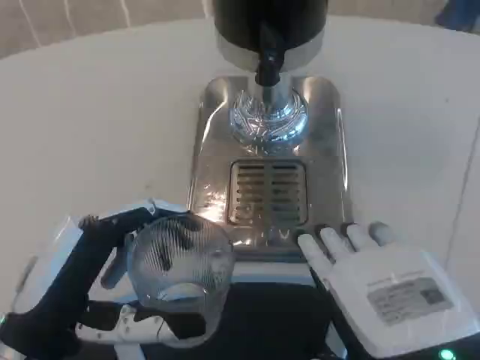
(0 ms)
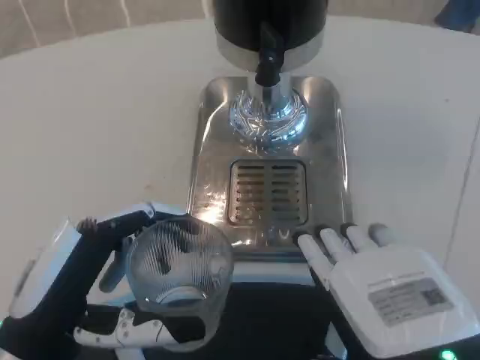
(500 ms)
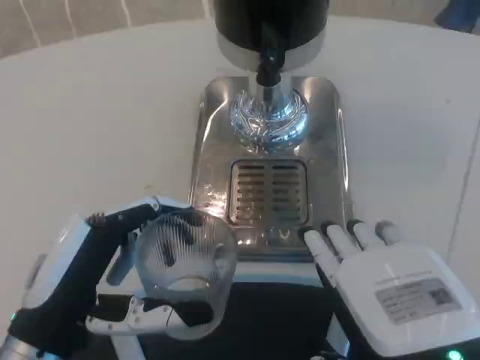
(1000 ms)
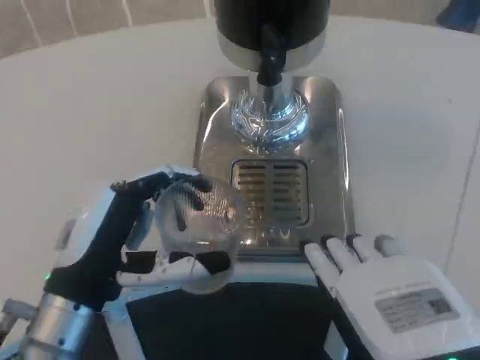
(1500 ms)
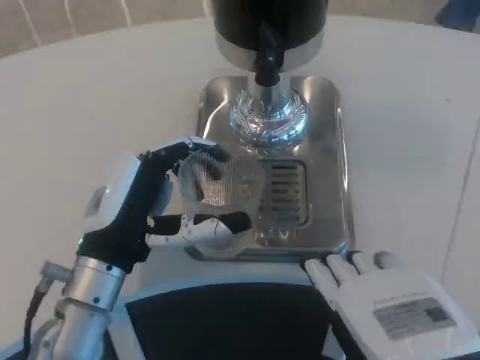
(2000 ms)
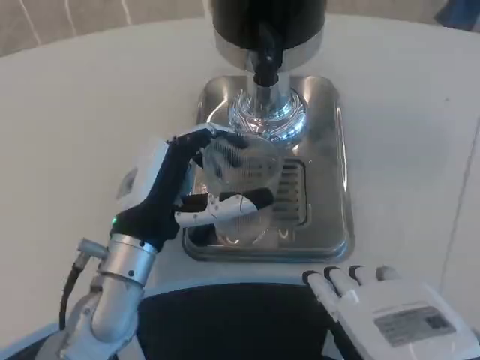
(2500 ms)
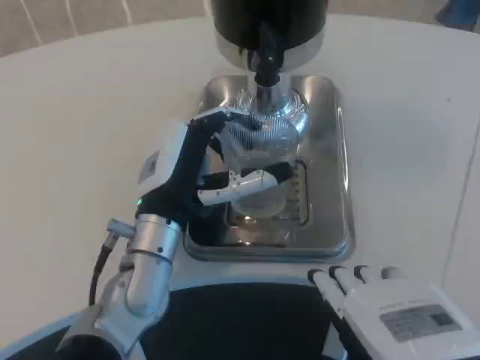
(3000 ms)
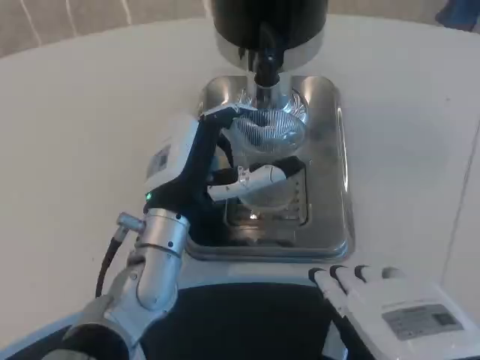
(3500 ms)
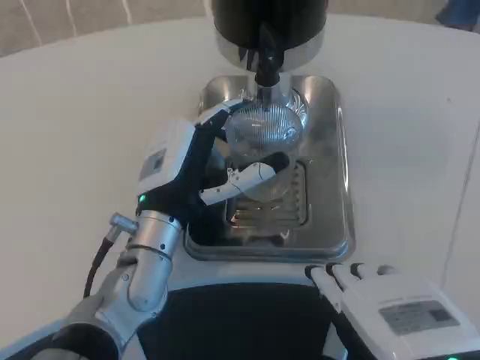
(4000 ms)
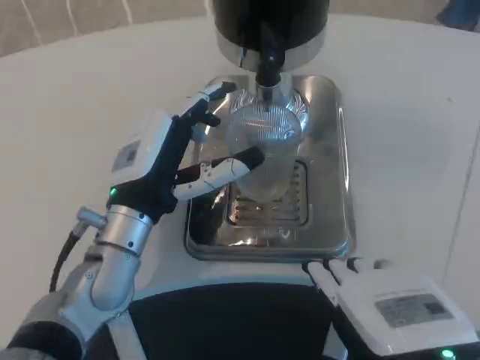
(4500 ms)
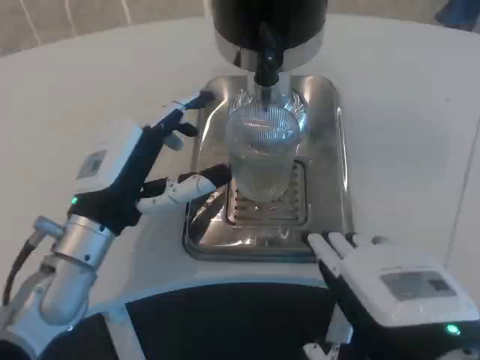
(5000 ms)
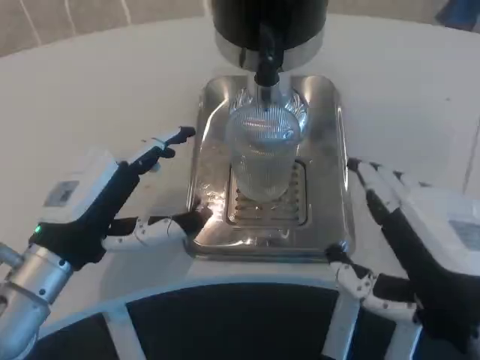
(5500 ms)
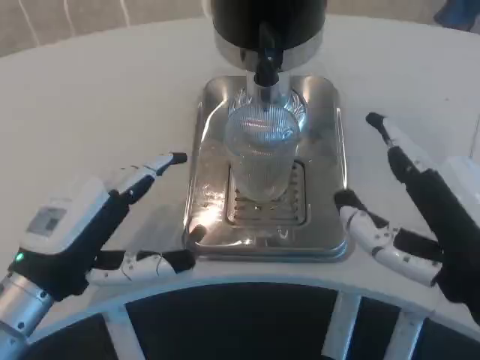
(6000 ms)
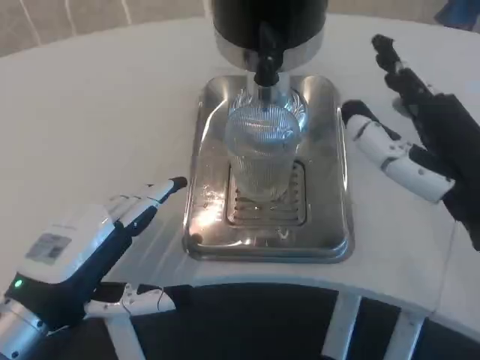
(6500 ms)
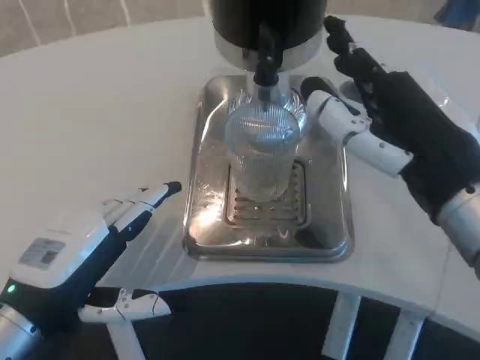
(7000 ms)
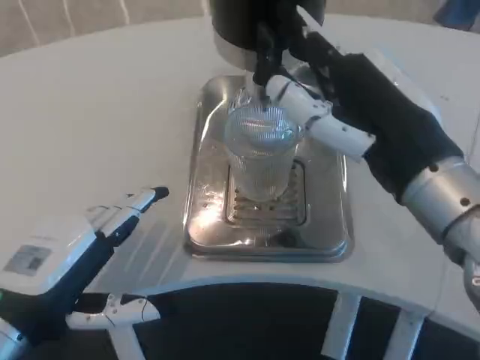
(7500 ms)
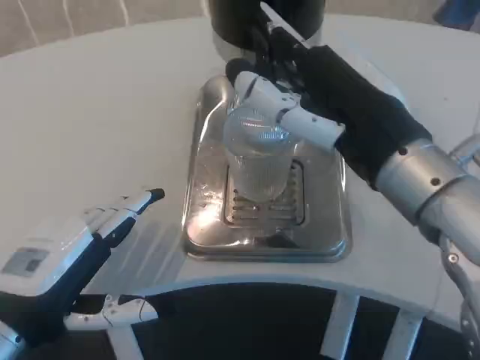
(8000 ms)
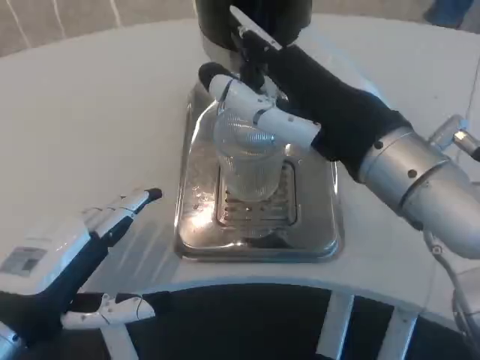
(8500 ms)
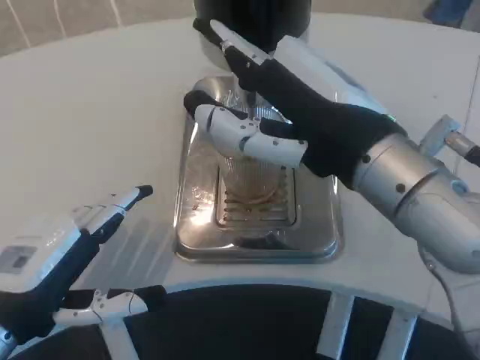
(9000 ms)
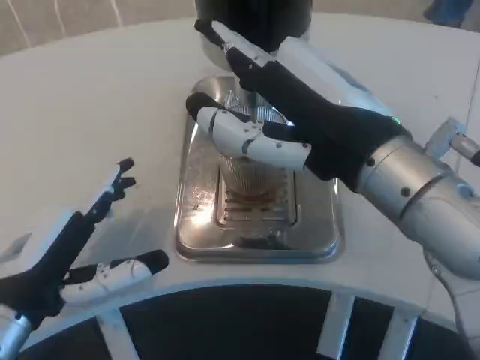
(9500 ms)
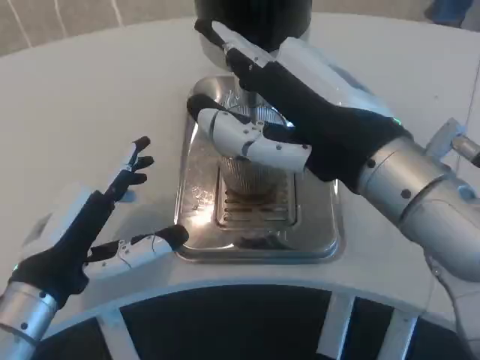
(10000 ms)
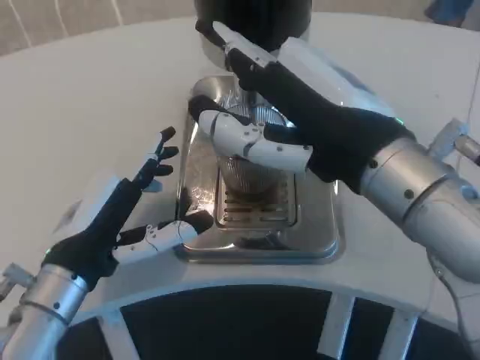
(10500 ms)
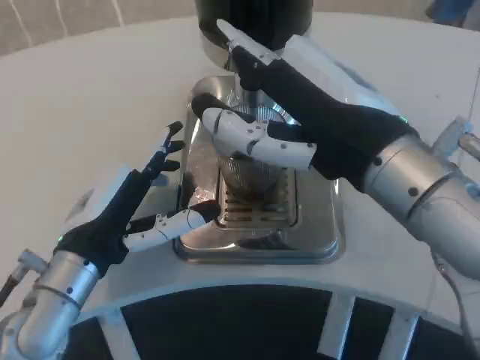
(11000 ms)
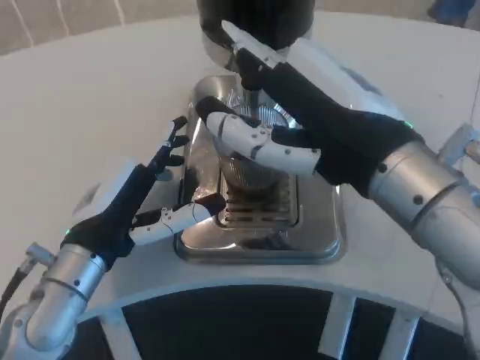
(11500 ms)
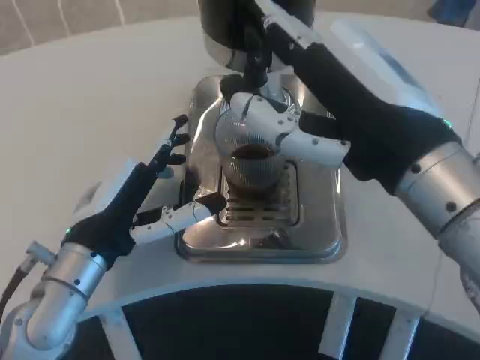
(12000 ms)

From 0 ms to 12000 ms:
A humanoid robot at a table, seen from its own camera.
Task of the whole recording: Grasp the cup under the faucet to collect the drink, then remove the cup.
From 0 ms to 2000 ms: The left hand travels forward by approximately 10 cm.
From 2000 ms to 4000 ms: The left hand heads to the right and forward, covering approximately 5 cm.
From 4000 ms to 6000 ms: The left hand moves to the left and backward, about 15 cm, while the right hand moves some 5 cm.
From 6000 ms to 8000 ms: The right hand heads forward and upward, covering approximately 10 cm.
From 10000 ms to 12000 ms: The left hand moves roughly 5 cm.

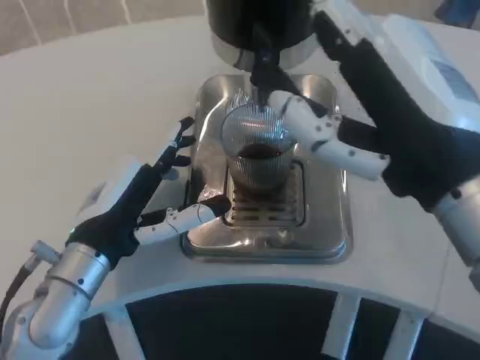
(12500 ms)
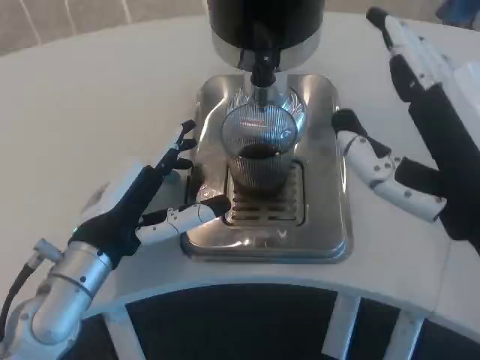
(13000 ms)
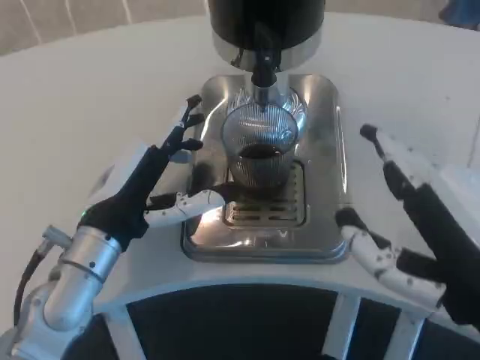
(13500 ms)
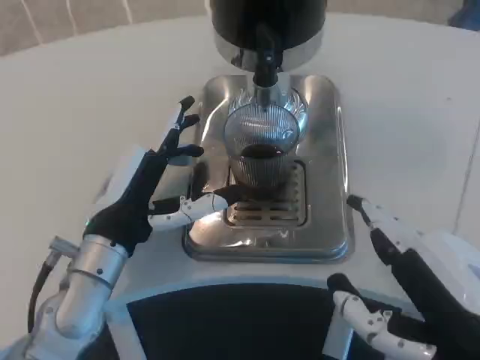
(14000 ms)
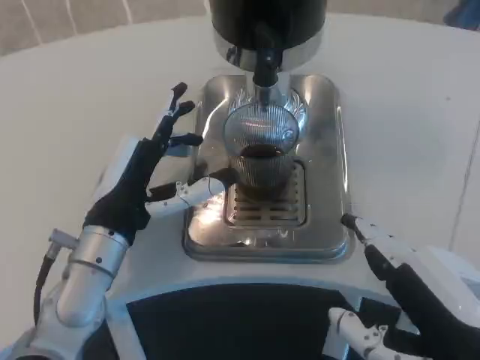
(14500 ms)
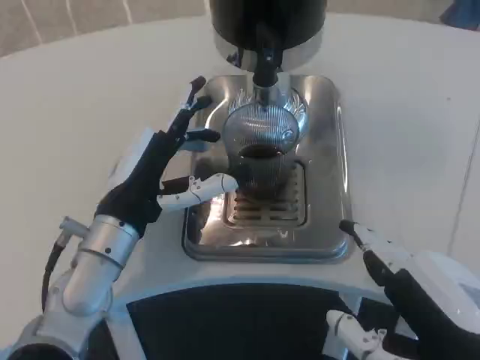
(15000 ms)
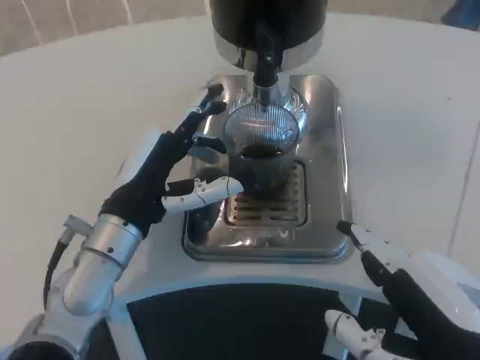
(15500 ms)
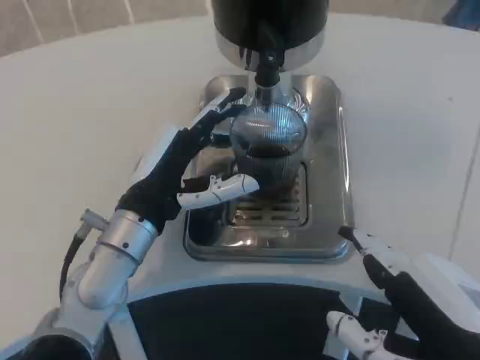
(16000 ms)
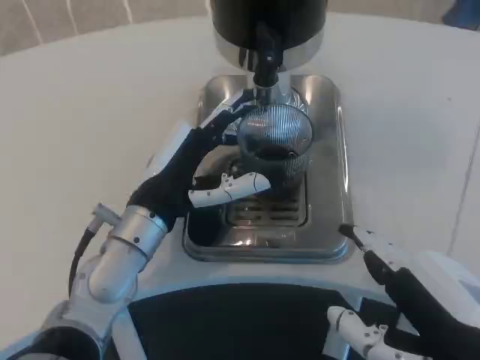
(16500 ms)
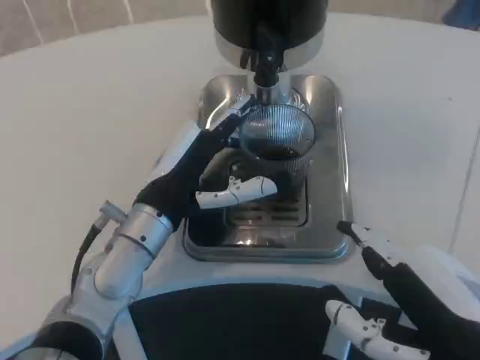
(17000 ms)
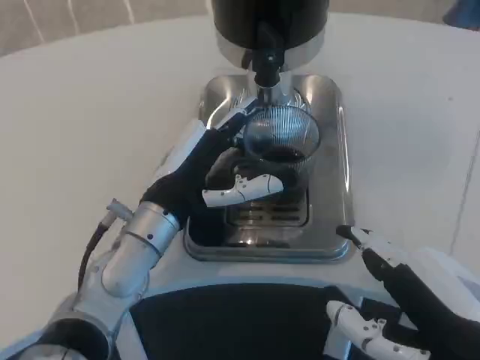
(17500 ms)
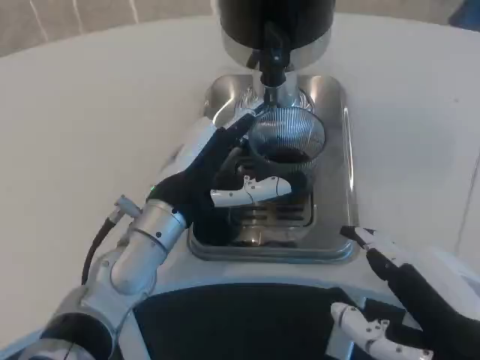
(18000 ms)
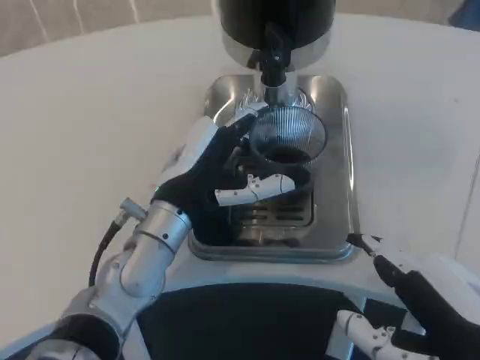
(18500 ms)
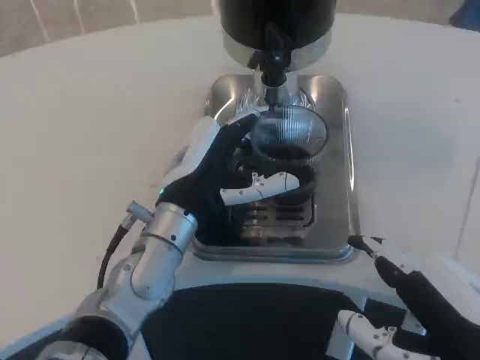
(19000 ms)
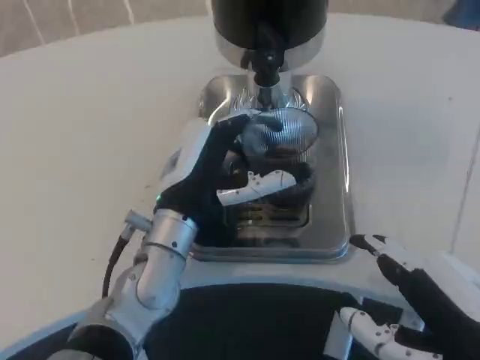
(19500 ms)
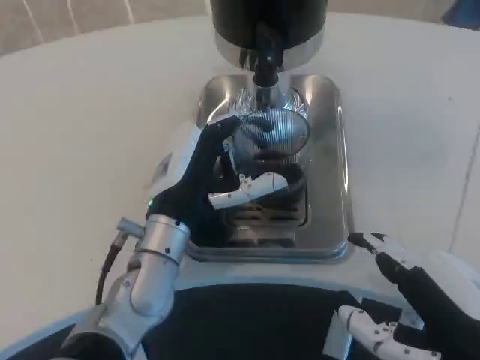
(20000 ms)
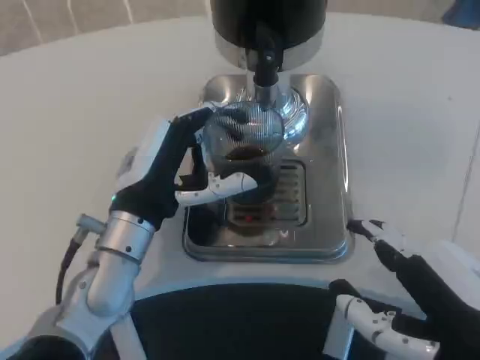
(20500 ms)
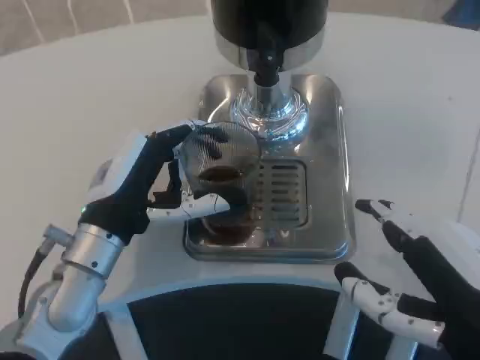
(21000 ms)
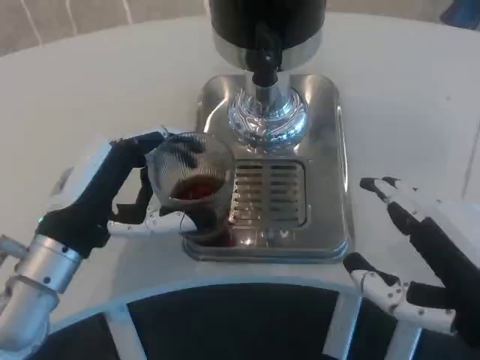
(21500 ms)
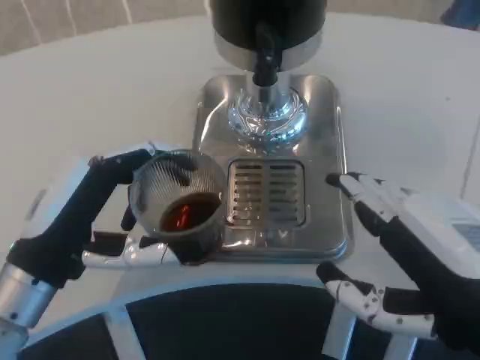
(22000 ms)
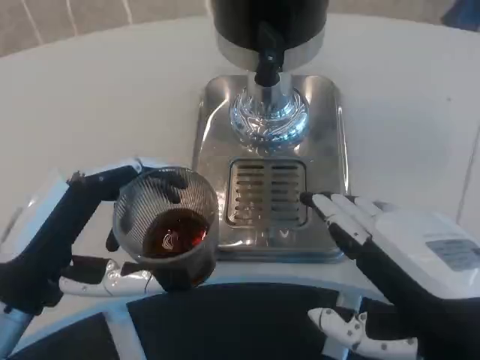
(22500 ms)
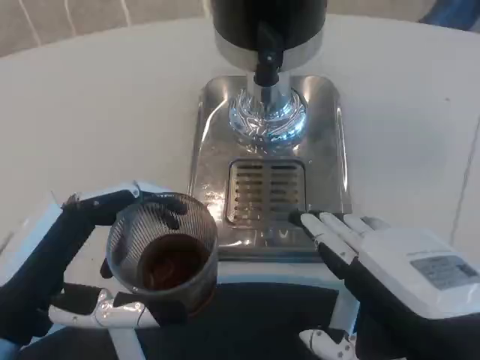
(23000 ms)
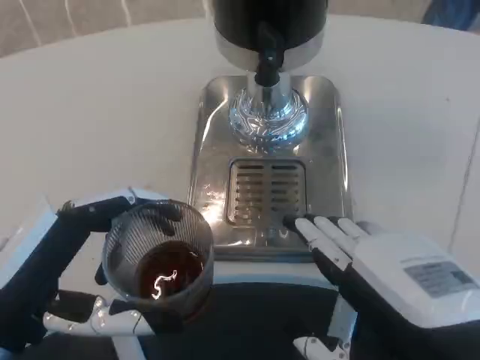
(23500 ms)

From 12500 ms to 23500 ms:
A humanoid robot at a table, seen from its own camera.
Task of the whole recording: Grasp the cup under the faucet to collect the drink, then remove the cup.
From 12500 ms to 14500 ms: The right hand shifts some 10 cm downward and backward.
From 14500 ms to 18000 ms: The hands make only small movements.
From 18000 ms to 20000 ms: The hands make only small movements.
From 20000 ms to 21500 ms: The left hand goes roughly 10 cm to the left.
From 21500 ms to 23500 ms: The left hand heads backward, covering approximately 10 cm.

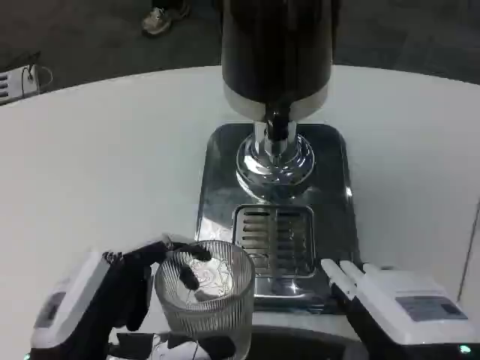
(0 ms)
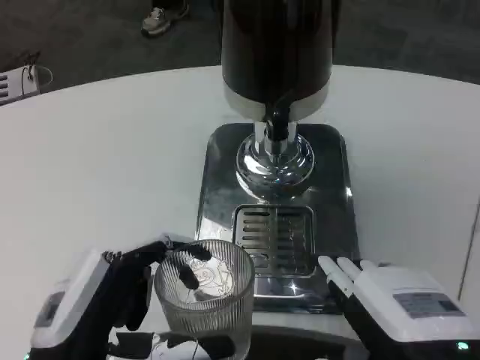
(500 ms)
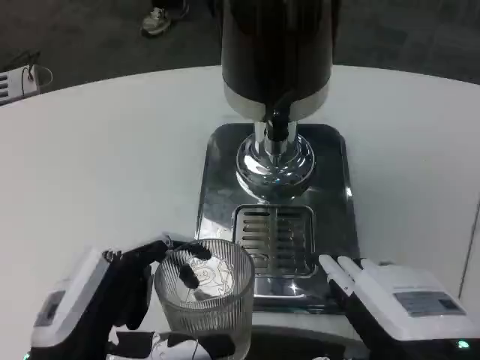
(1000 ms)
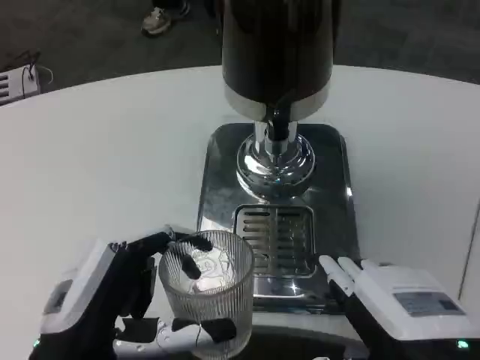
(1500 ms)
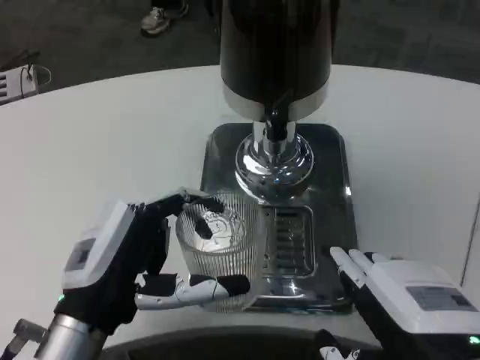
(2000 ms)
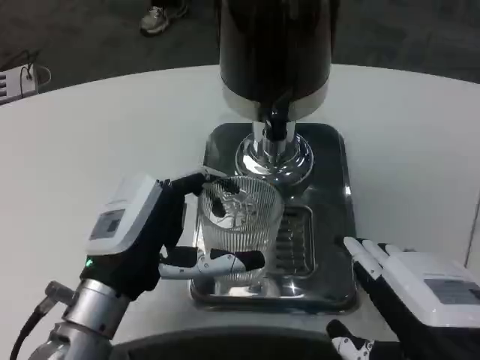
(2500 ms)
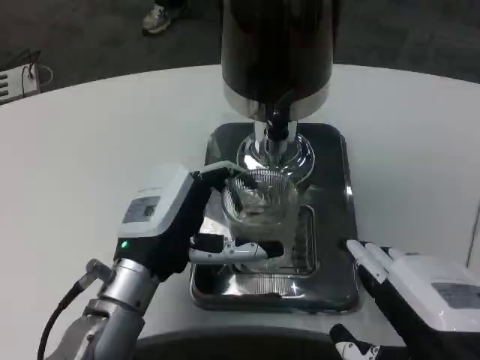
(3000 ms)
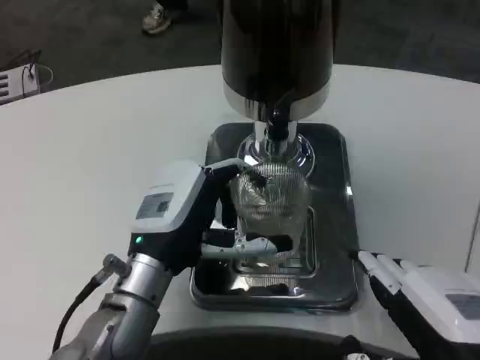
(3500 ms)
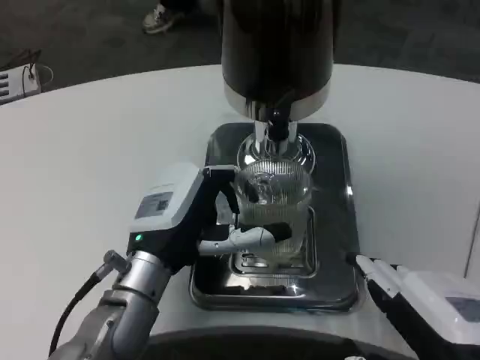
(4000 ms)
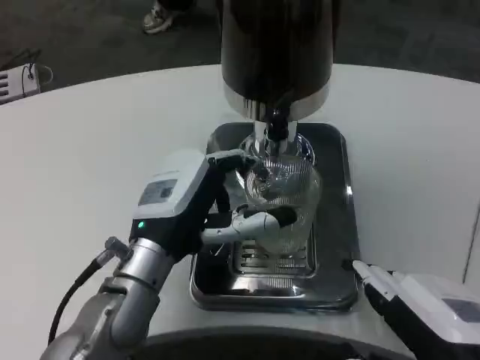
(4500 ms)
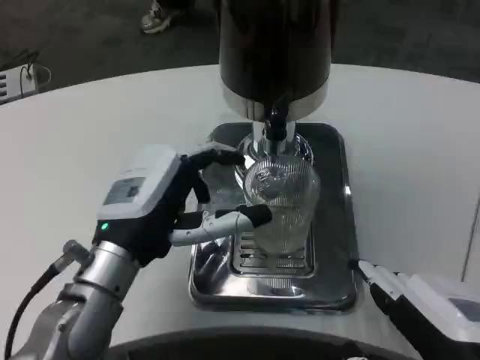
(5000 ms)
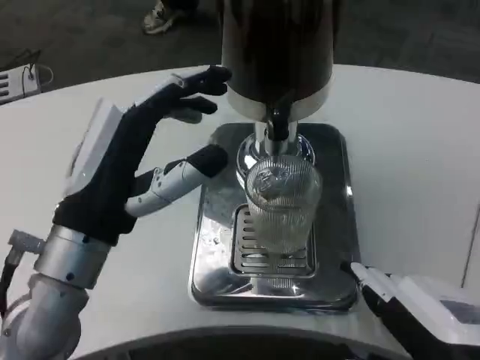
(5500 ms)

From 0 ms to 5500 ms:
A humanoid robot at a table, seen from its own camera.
Task of the whole recording: Grasp the cup under the faucet to collect the drink, then remove the cup.
From 0 ms to 2000 ms: The left hand shifts approximately 5 cm forward.
From 2000 ms to 3500 ms: The left hand heads forward, covering about 5 cm.
From 3500 ms to 5500 ms: The left hand travels upward by roughly 5 cm.